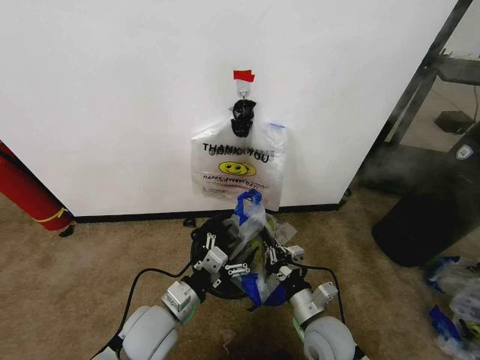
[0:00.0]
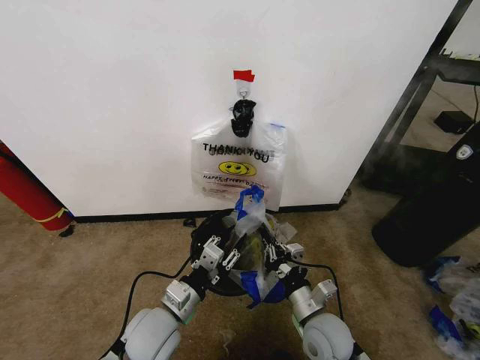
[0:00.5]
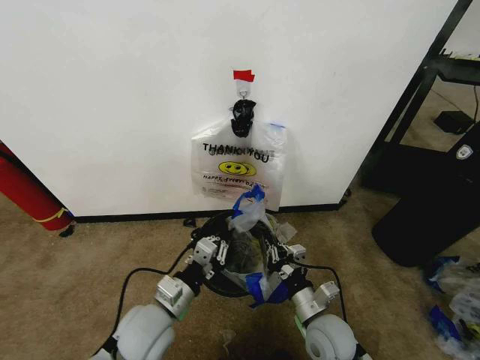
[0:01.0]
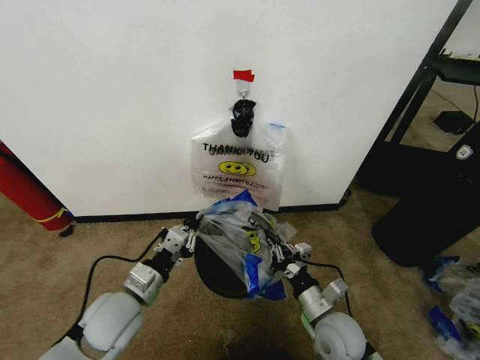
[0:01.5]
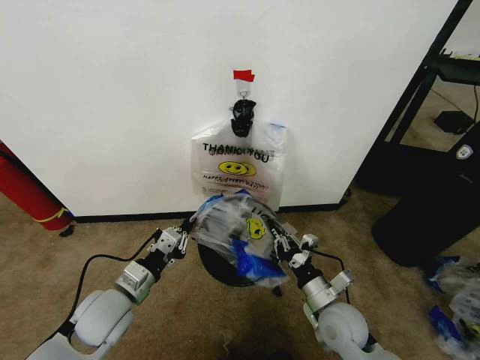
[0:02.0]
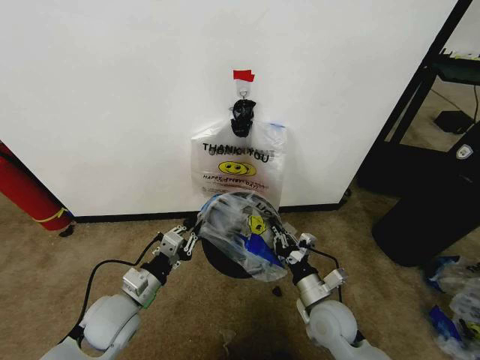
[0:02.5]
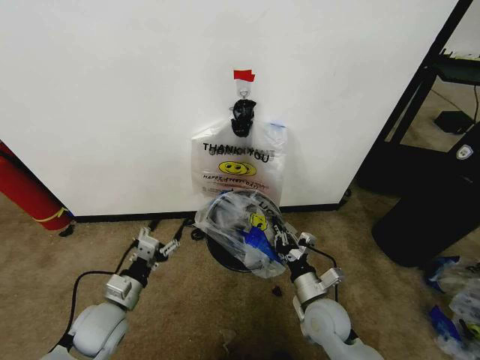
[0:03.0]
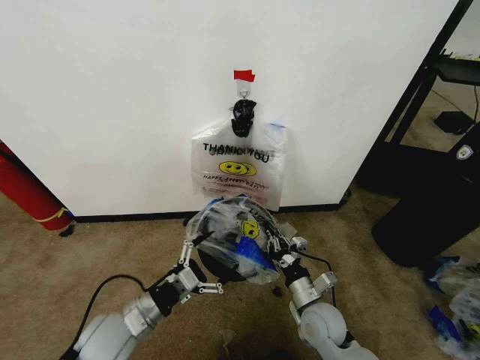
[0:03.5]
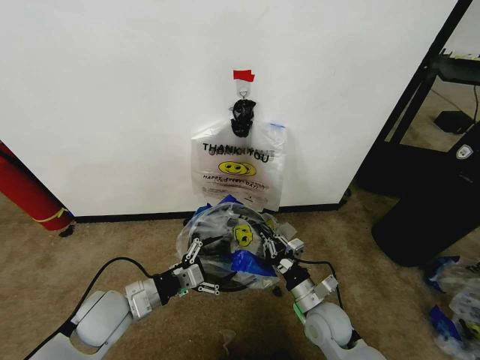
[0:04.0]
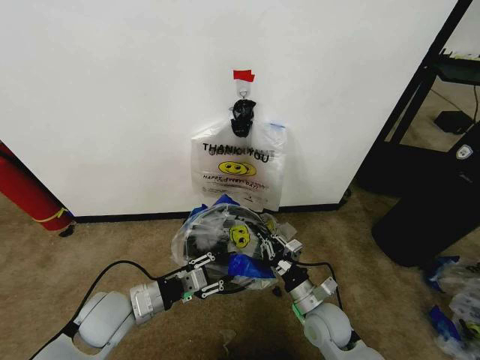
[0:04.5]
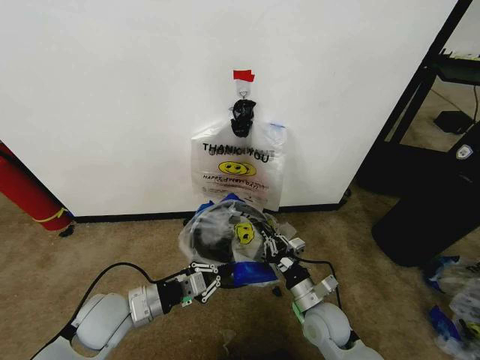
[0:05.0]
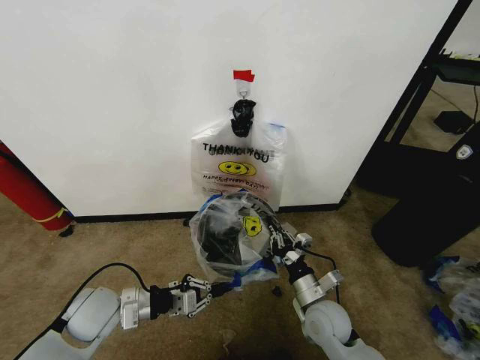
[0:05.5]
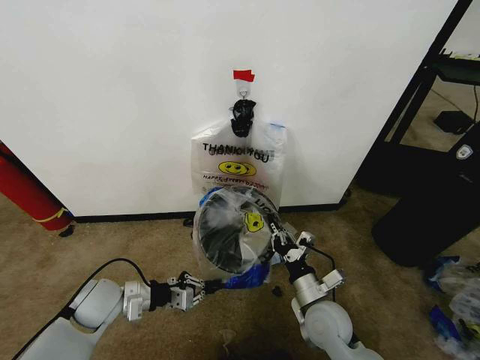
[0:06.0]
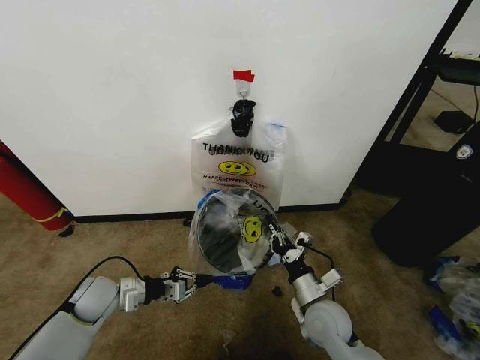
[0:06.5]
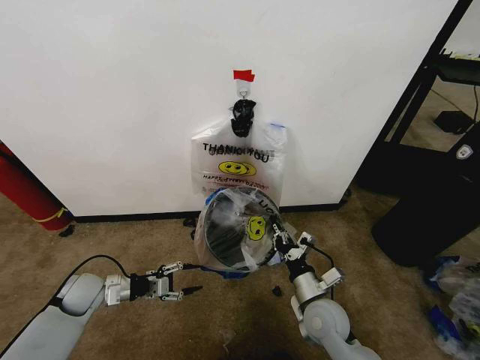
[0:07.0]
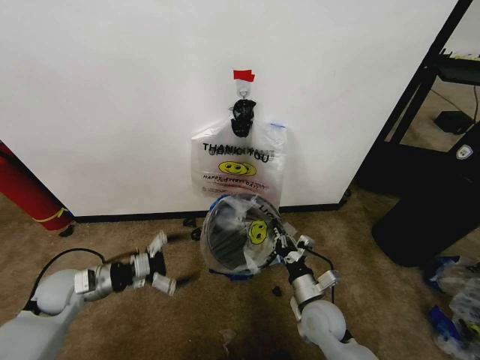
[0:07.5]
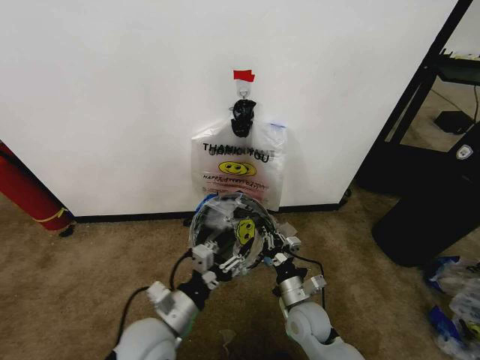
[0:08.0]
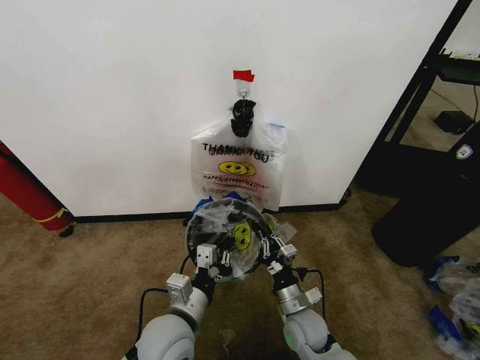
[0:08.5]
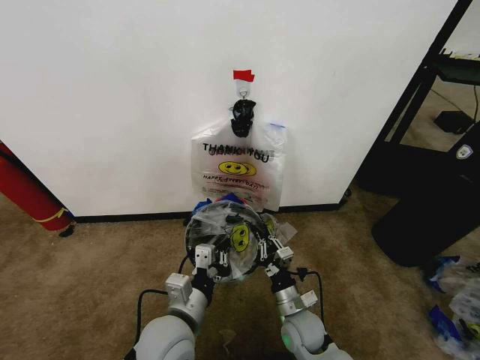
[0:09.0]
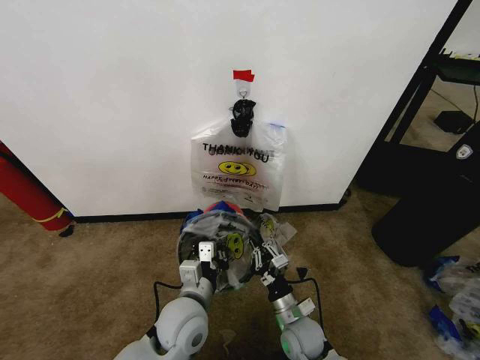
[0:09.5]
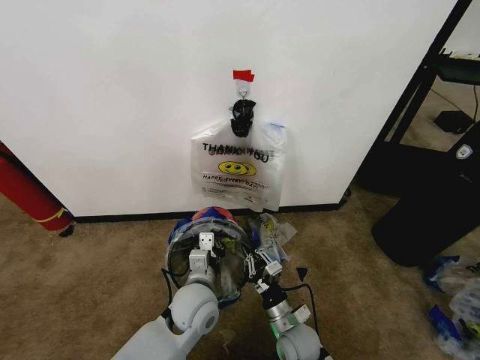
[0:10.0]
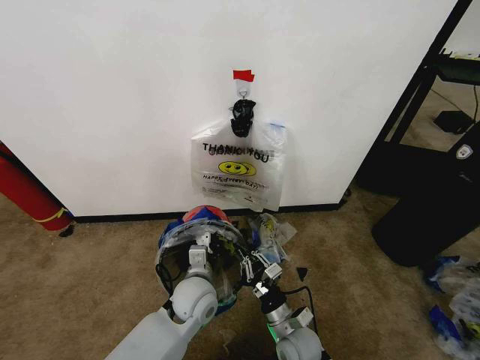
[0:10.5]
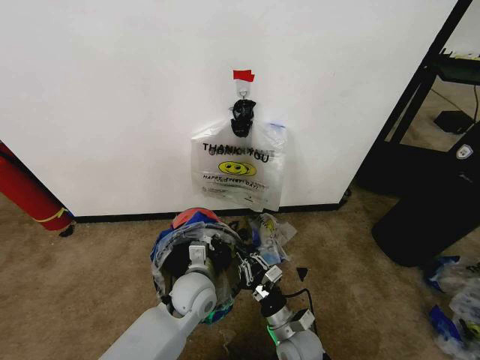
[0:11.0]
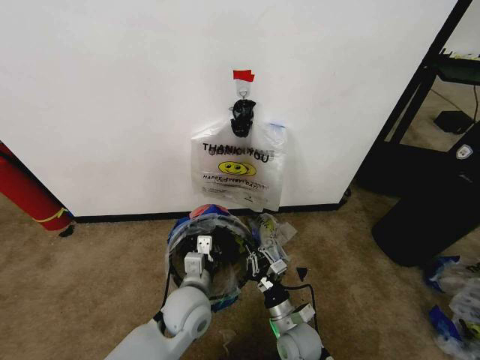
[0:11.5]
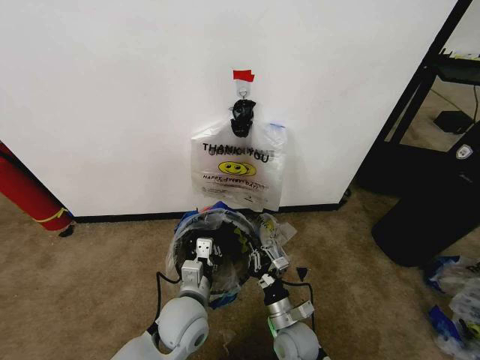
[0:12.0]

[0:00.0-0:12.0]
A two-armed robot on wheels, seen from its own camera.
Task of the whole recording: Pick up the garbage bag from the wall and place it over the trash bin.
0:00.0 to 0:02.0: The left gripper is displaced to the left by approximately 10 cm, and closes up.
0:02.0 to 0:04.0: The left gripper opens.
0:04.0 to 0:06.0: The left gripper changes place by some 5 cm, and closes its fingers.
0:06.0 to 0:08.0: The left gripper is displaced to the right and backward by approximately 15 cm, and opens its fingers. Meanwhile the right gripper shifts by approximately 5 cm.
0:08.0 to 0:10.0: The right gripper ends up roughly 5 cm from where it was, while the left gripper shifts about 10 cm forward and to the right, and closes.
0:10.0 to 0:12.0: The grippers move only a little.

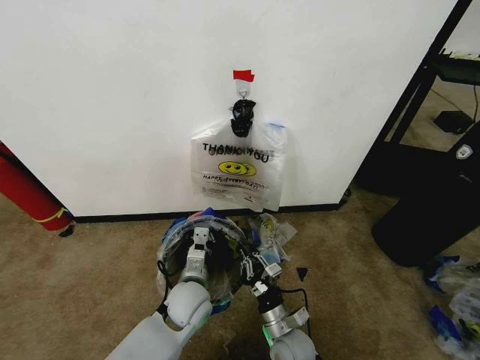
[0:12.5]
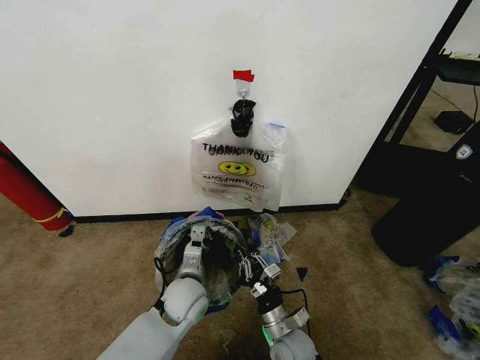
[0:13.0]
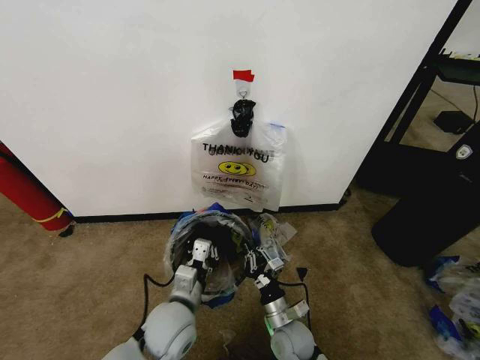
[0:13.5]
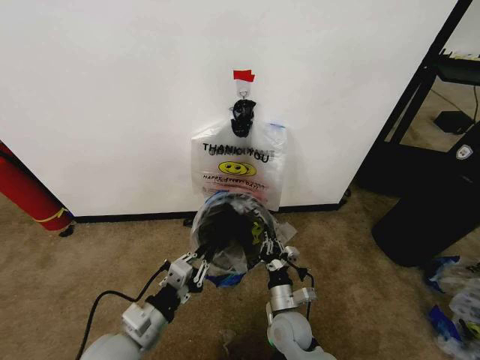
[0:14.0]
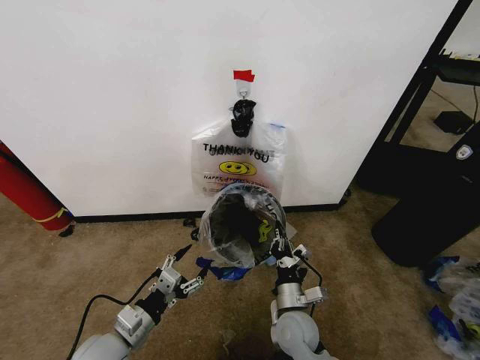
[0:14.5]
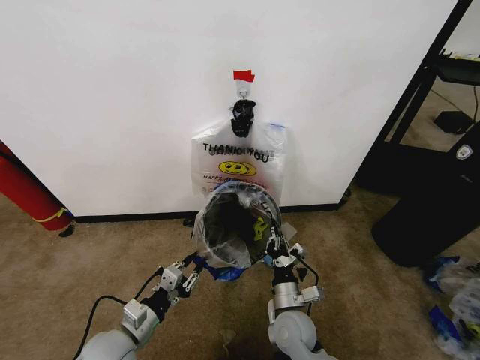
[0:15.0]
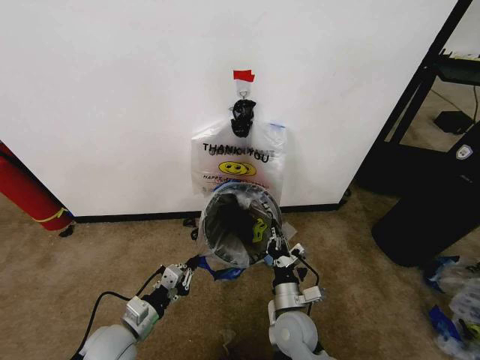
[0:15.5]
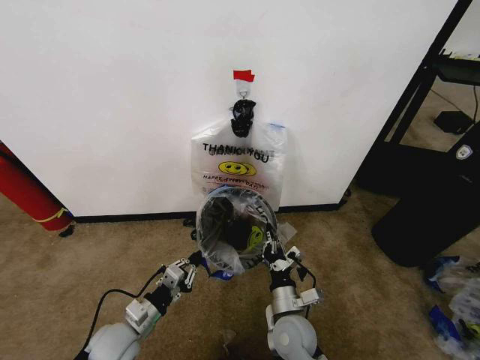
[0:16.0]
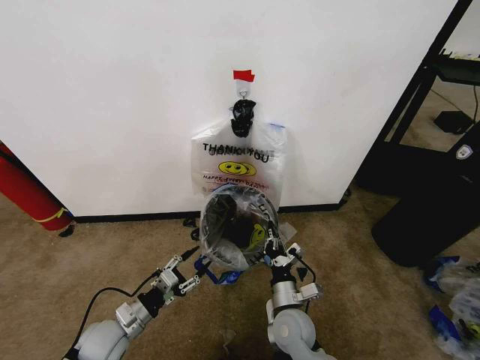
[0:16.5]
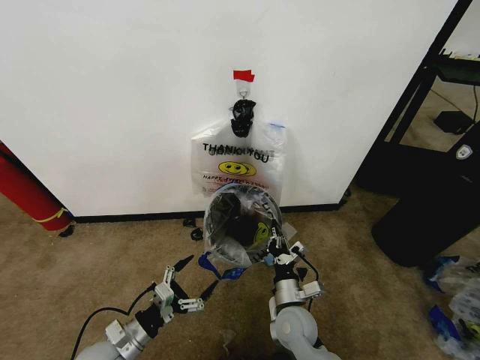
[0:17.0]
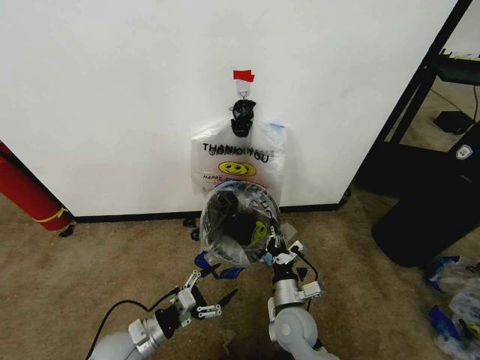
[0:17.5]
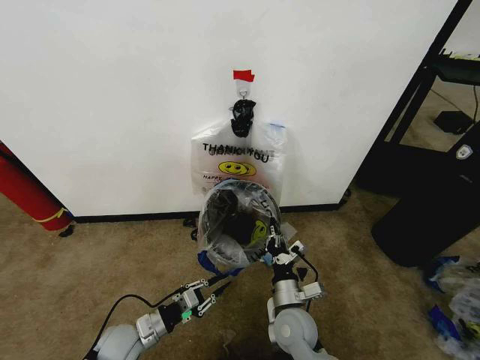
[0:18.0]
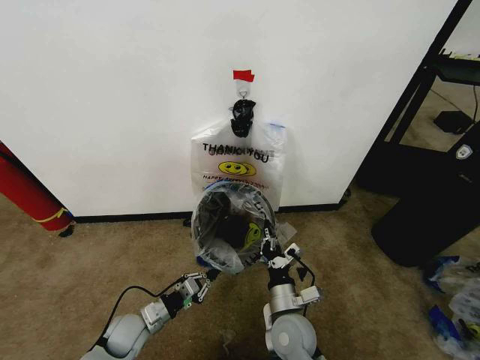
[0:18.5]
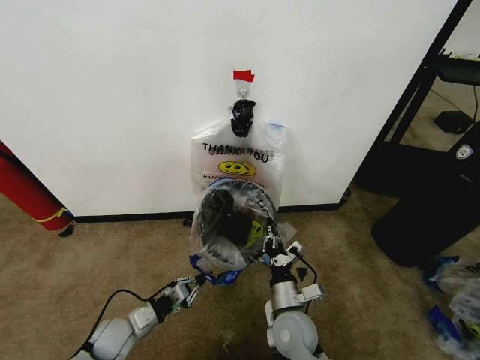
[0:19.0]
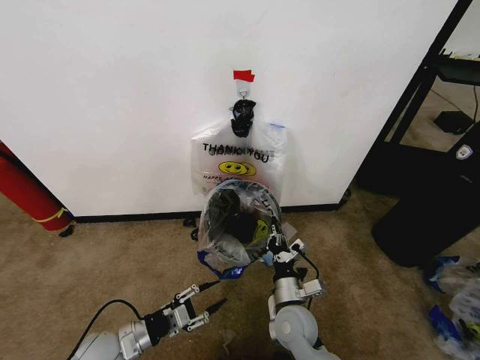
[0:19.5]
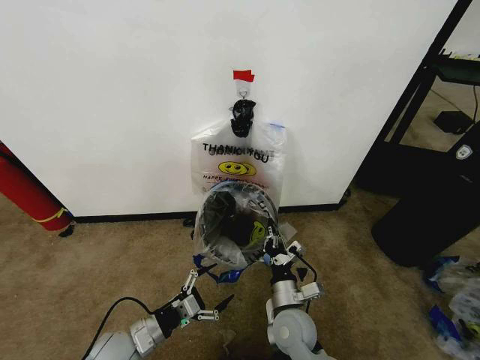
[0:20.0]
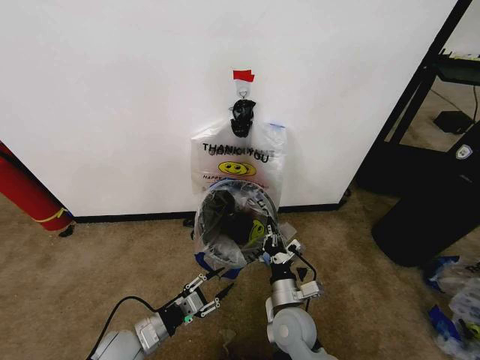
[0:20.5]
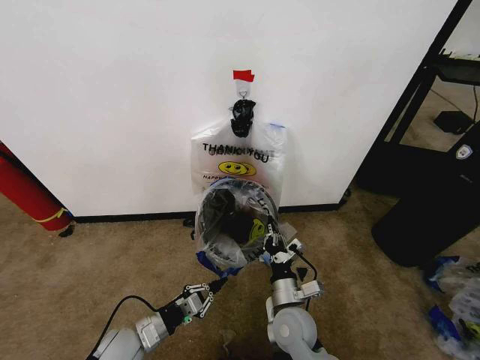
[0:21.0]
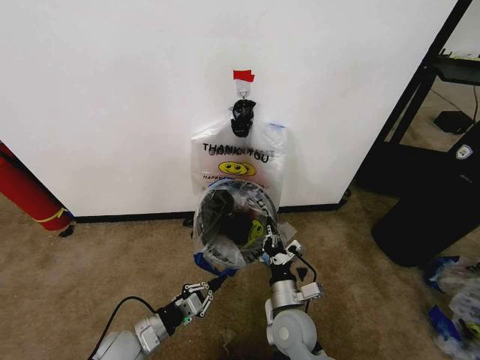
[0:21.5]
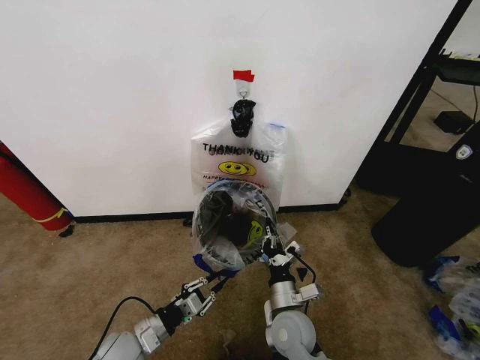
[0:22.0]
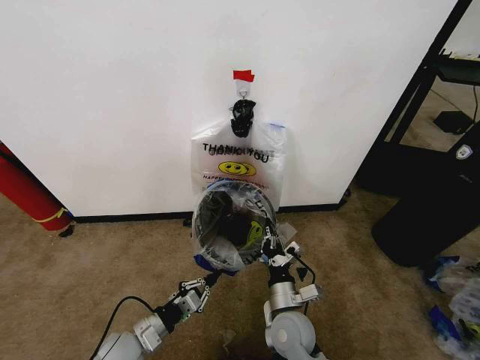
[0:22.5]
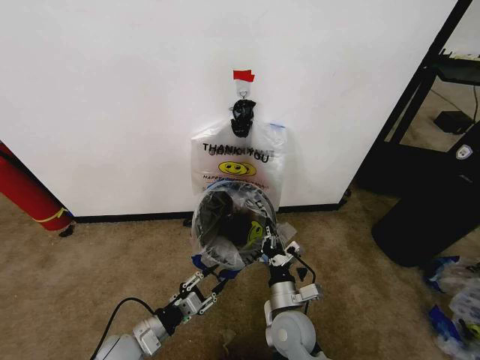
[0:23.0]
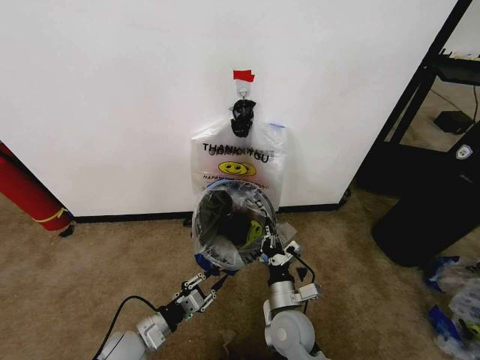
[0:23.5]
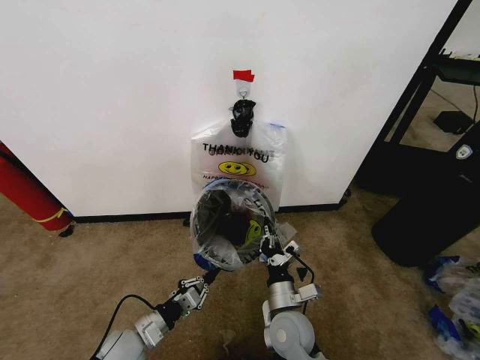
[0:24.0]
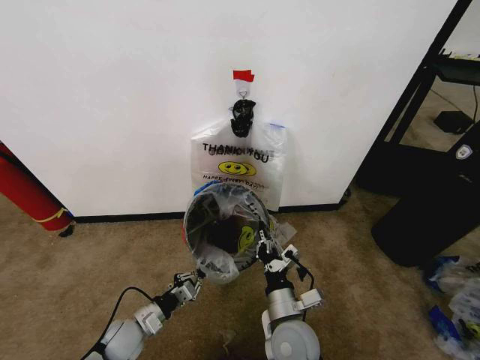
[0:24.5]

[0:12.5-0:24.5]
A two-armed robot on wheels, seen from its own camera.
Task of the whole recording: Pick up the garbage bag from the wall and place it over the trash bin.
0:12.5 to 0:14.5: The left gripper goes some 20 cm to the left and backward, and opens its fingers.
0:14.5 to 0:16.5: The left gripper moves downward, some 5 cm, and closes, then reopens.
0:16.5 to 0:18.5: The left gripper goes approximately 5 cm downward, and closes its fingers.
0:18.5 to 0:20.5: The left gripper shifts by some 5 cm, and opens.
0:20.5 to 0:22.5: The left gripper closes.
0:22.5 to 0:24.5: The left gripper ends up some 5 cm from where it was, and opens, then closes again.

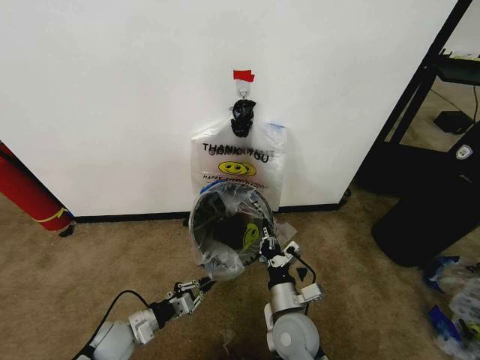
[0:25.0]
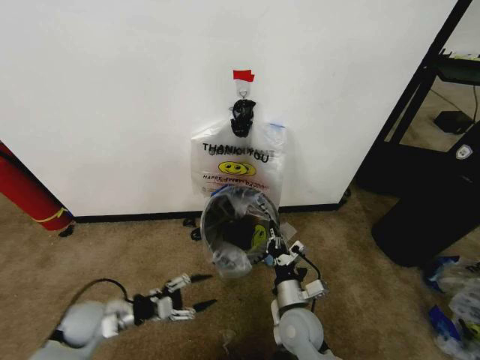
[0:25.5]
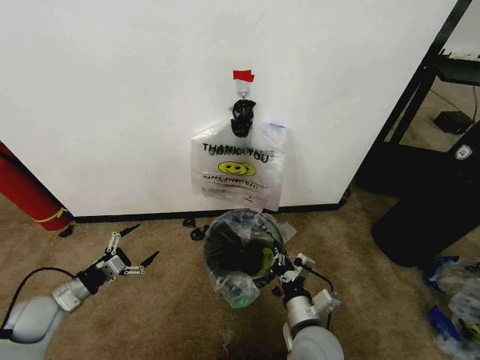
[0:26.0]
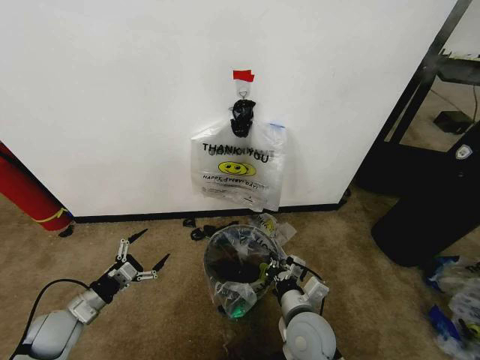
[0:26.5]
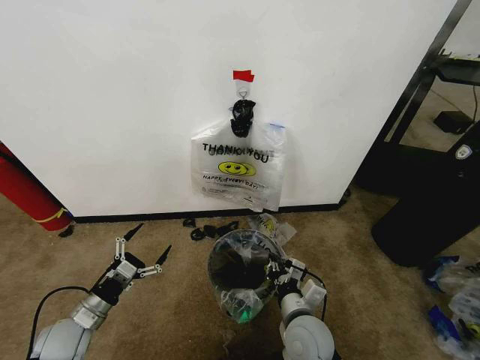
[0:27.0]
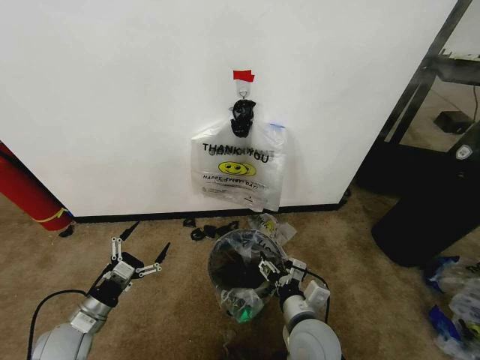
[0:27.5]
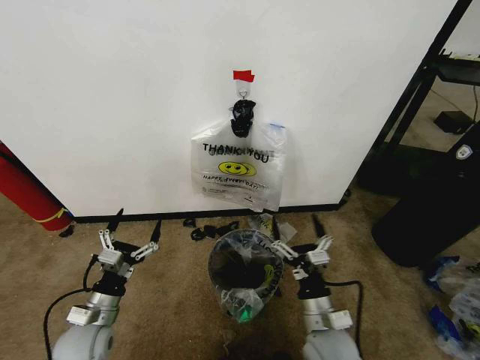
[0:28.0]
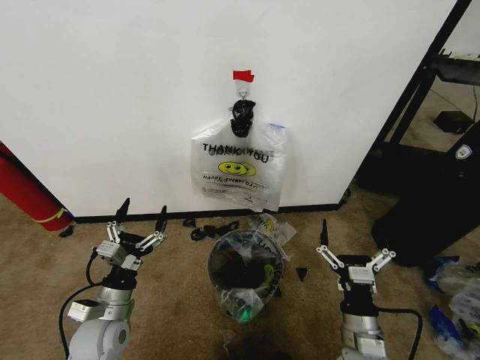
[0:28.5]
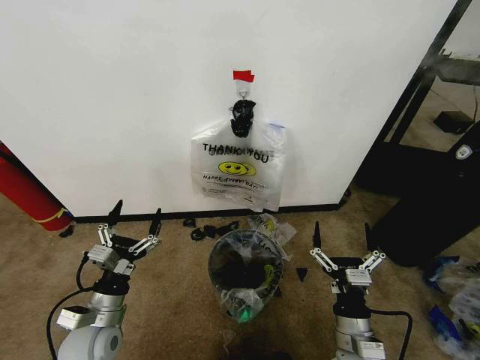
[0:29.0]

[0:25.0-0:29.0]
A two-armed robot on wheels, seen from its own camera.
Task of the whole recording: Pick up the garbage bag from the wall and place it over the trash bin.
0:25.0 to 0:27.0: The left gripper heads to the left and upward, covering roughly 10 cm, and opens.
0:27.0 to 0:29.0: The right gripper heads to the right and backward, covering about 10 cm, and opens up. The left gripper heads to the right, covering approximately 10 cm.
